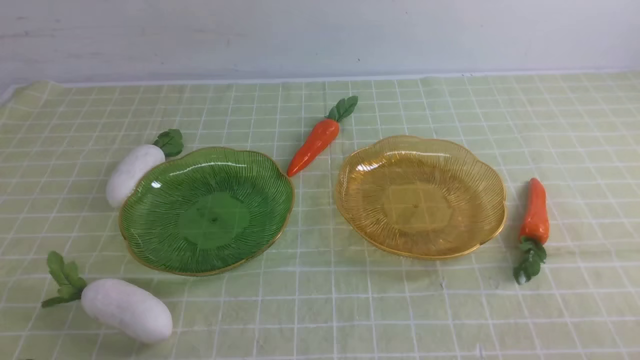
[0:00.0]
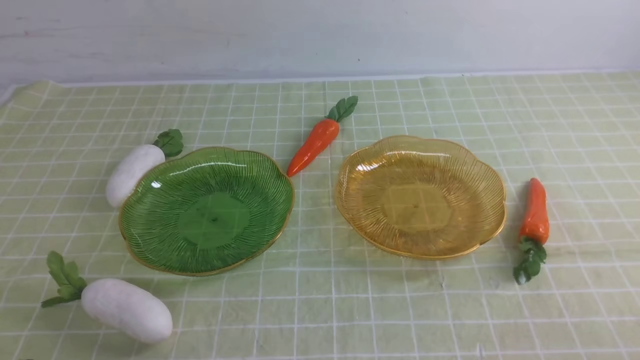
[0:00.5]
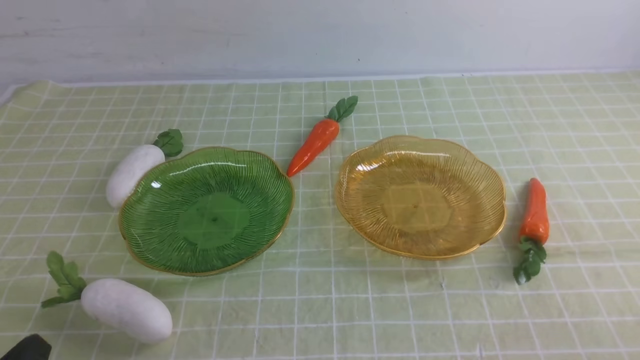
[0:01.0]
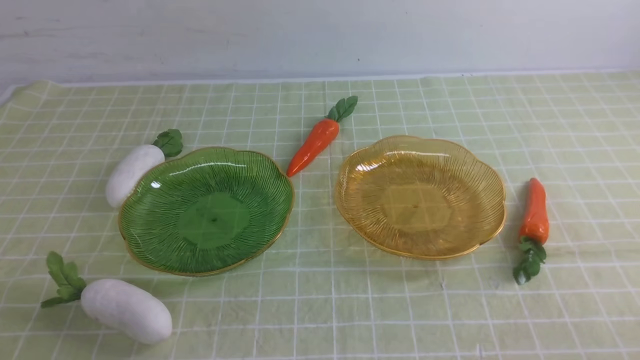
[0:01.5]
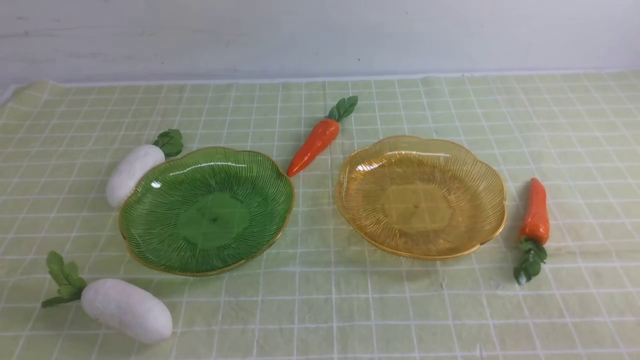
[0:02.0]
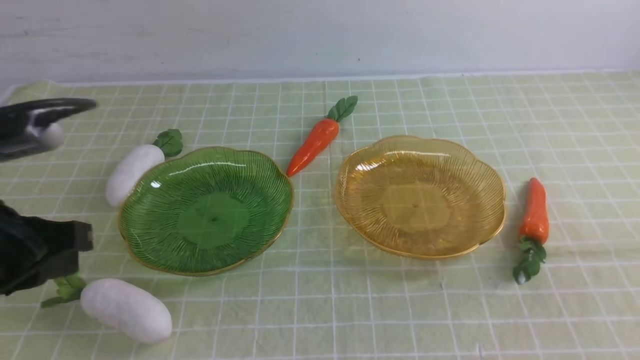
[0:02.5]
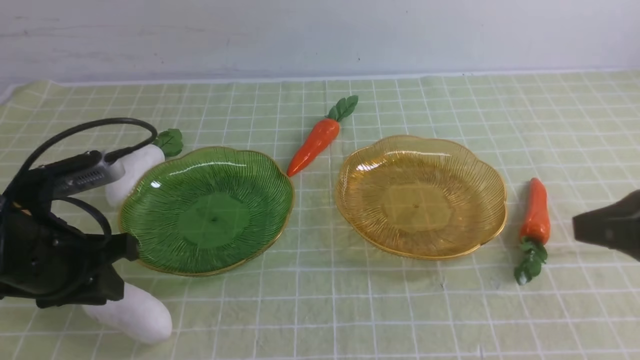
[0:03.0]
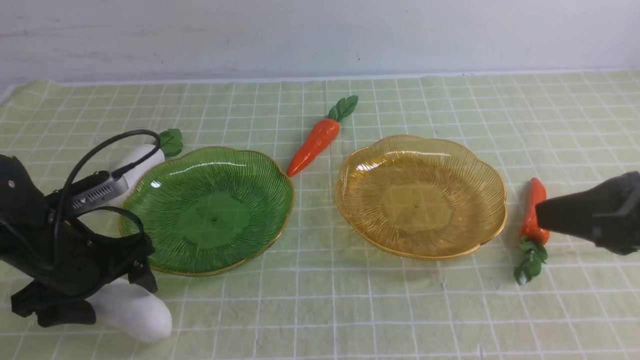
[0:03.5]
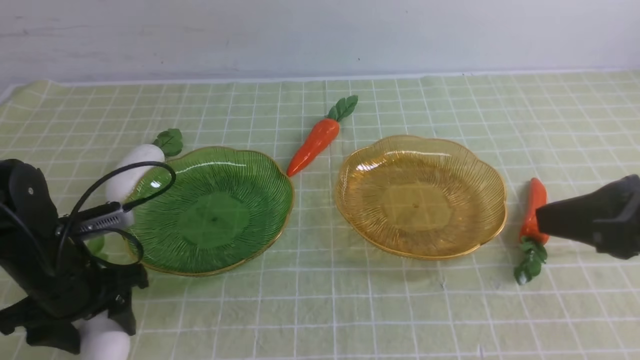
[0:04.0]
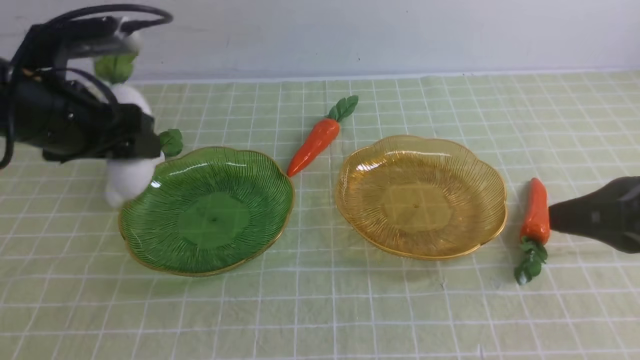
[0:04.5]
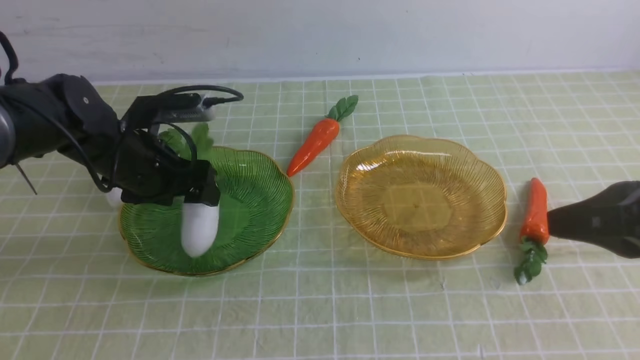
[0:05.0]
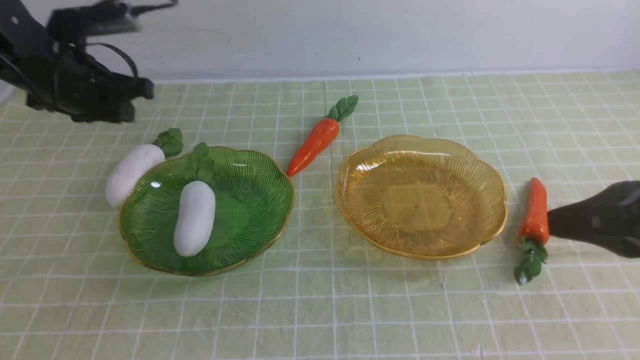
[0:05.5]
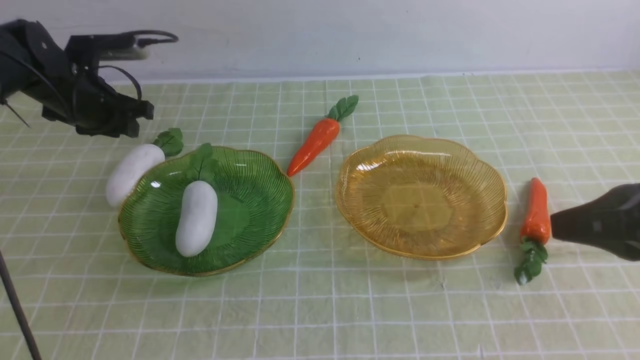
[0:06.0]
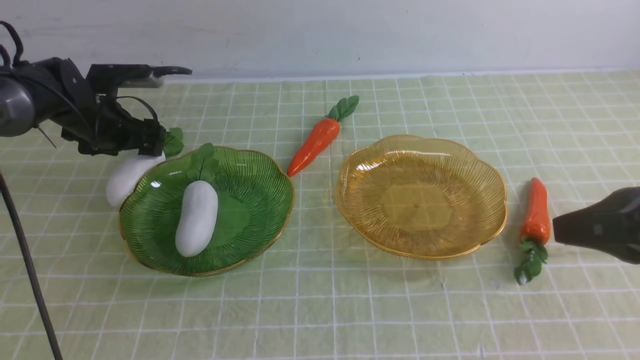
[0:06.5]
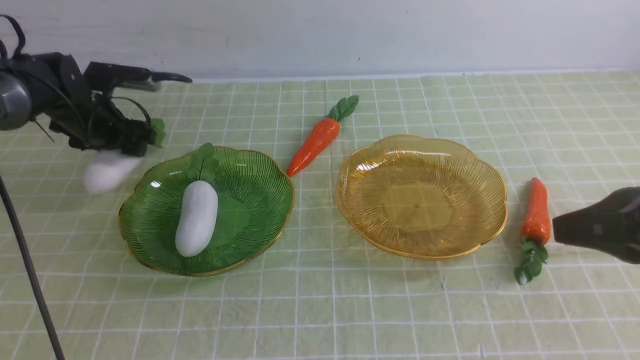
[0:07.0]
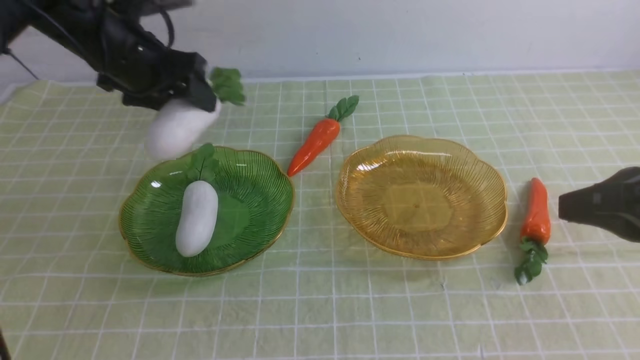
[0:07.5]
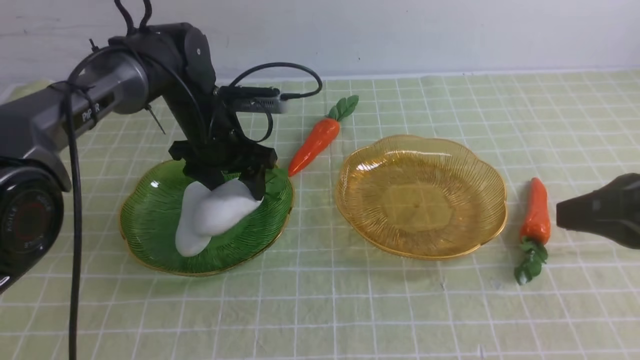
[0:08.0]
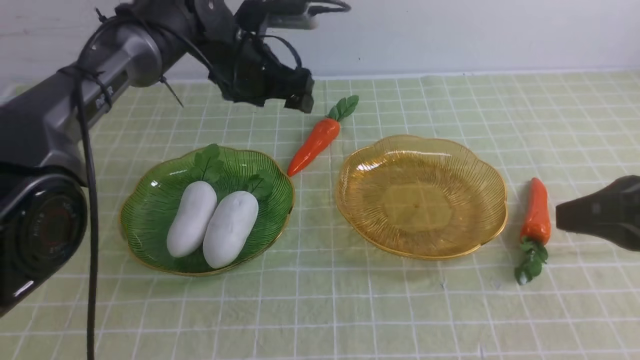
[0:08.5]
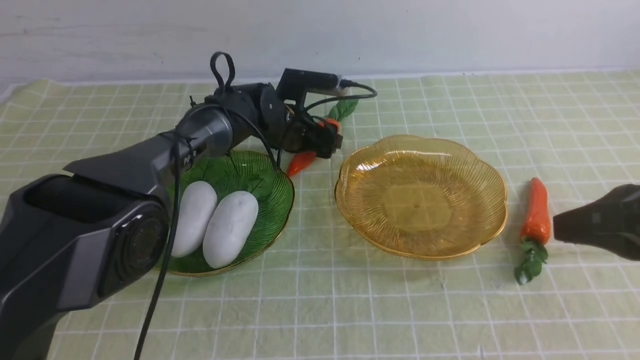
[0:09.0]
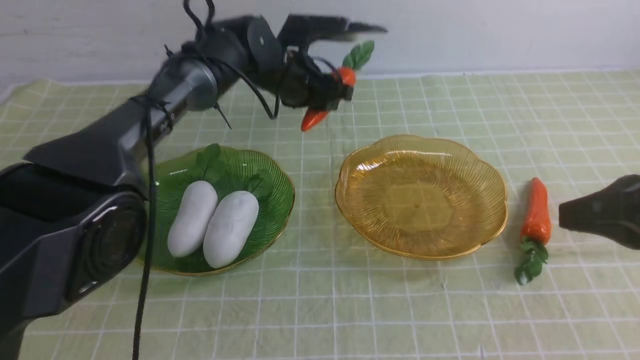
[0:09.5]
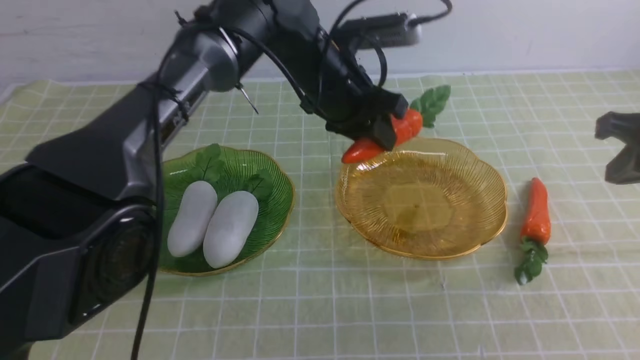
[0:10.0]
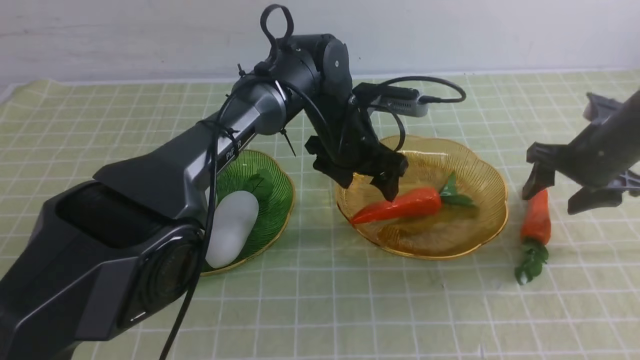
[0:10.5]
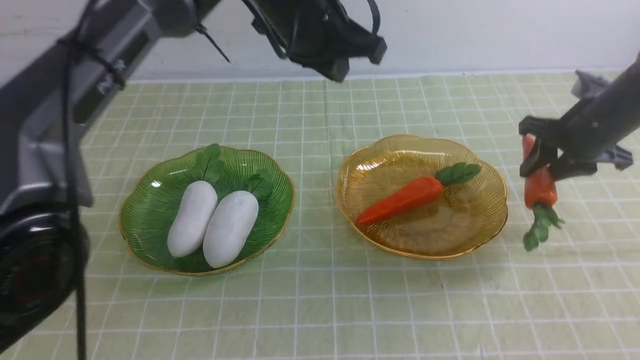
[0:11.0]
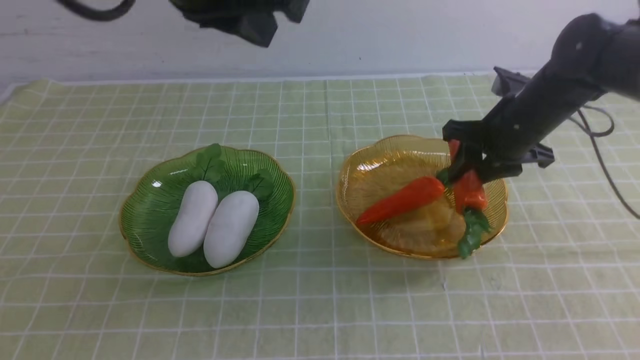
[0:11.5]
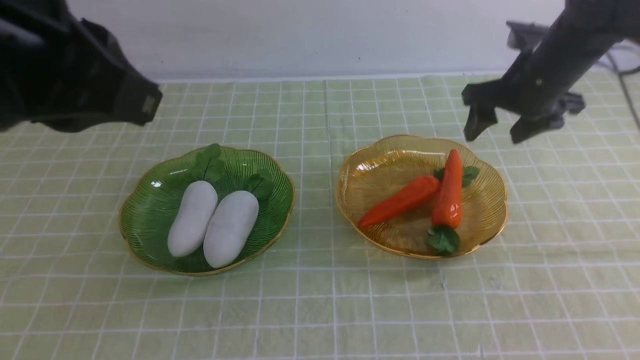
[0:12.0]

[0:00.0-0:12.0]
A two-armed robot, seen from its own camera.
Step, 0:00.0 to 0:08.0: use the left arm to grab a radish and put it into the left plate.
Step, 0:08.5 to 0:11.0: use the left arm to grab a carrot and put it into the right plate.
0:02.0 to 0:04.0: The left gripper moves forward and downward, roughly 25 cm, and opens up, while the right gripper heads forward, upward and to the left, covering some 20 cm.
0:04.0 to 0:06.0: The left gripper goes approximately 20 cm forward.
0:06.0 to 0:08.0: The left gripper heads to the right, covering roughly 15 cm, and opens up.
0:08.0 to 0:10.0: The right gripper is displaced forward and to the right by about 15 cm, while the left gripper moves to the right, roughly 15 cm, and closes.
0:10.0 to 0:12.0: The left gripper goes some 35 cm backward, upward and to the left, and closes its fingers. The right gripper is displaced forward and to the left by roughly 15 cm, moves approximately 10 cm downward and comes back, and opens up.

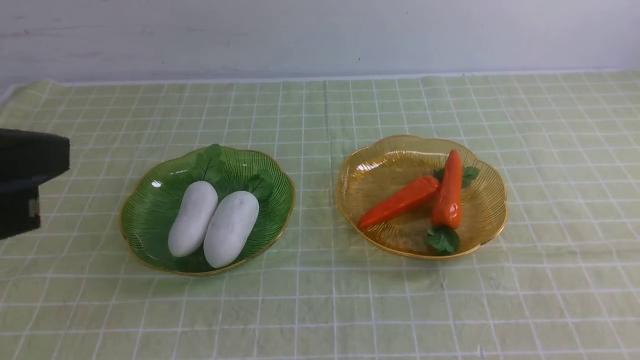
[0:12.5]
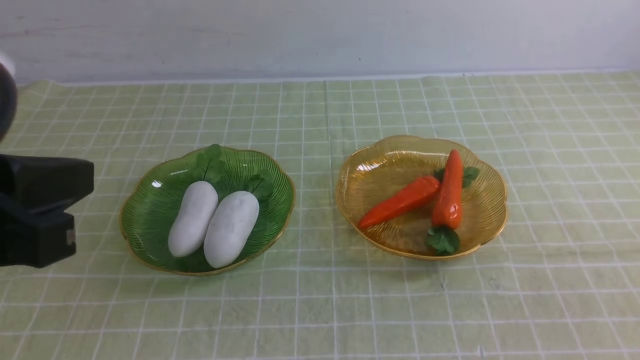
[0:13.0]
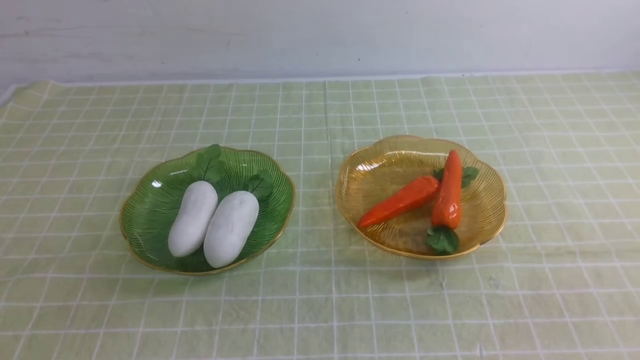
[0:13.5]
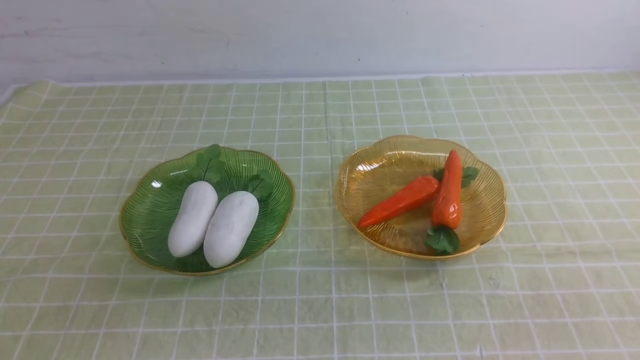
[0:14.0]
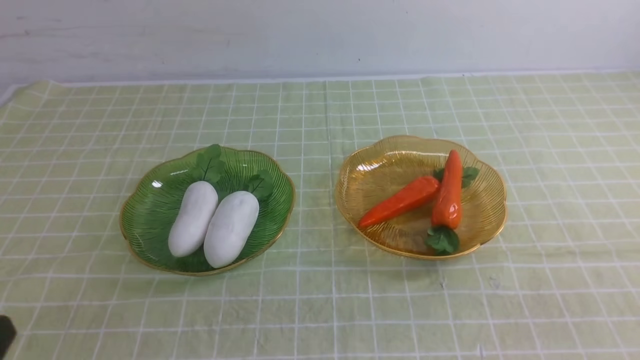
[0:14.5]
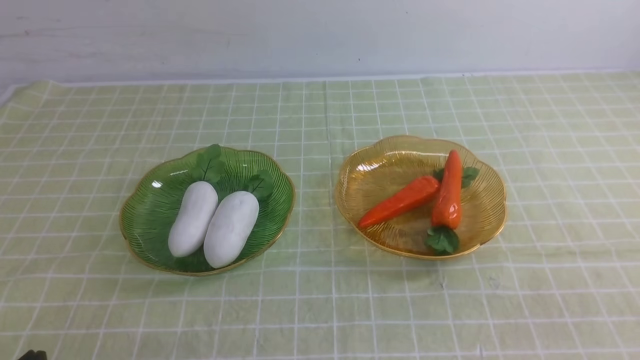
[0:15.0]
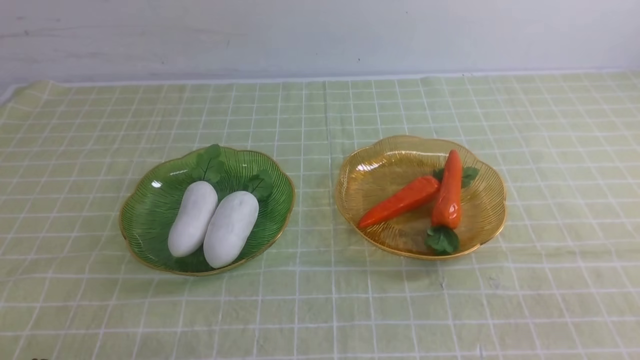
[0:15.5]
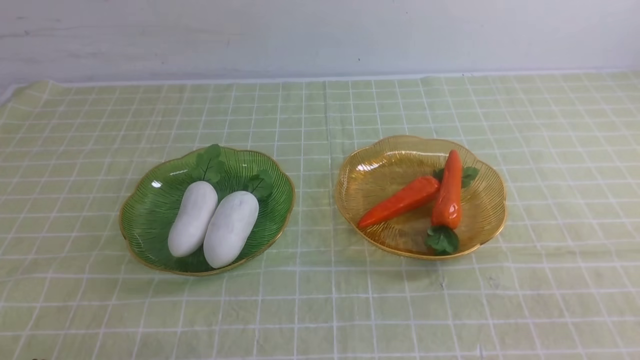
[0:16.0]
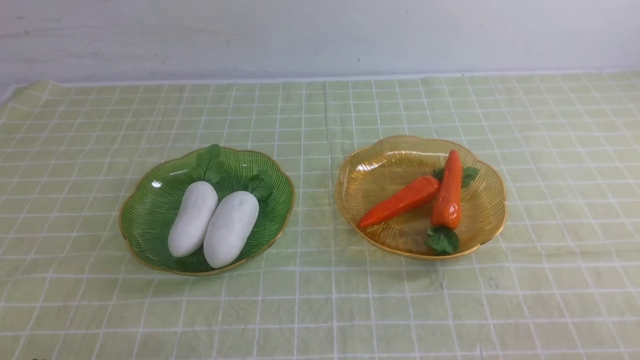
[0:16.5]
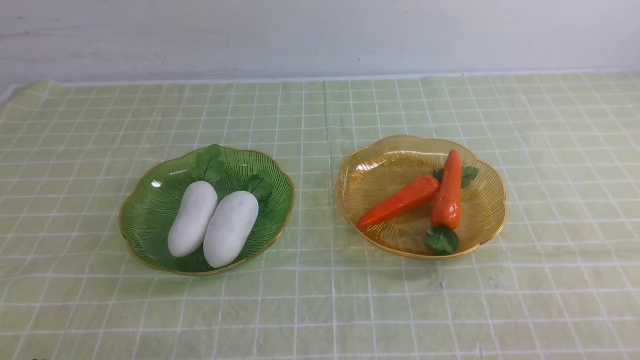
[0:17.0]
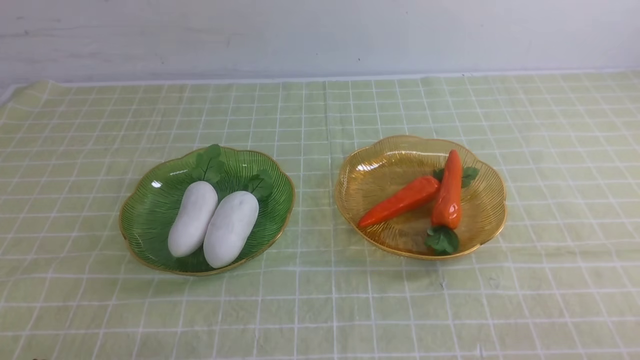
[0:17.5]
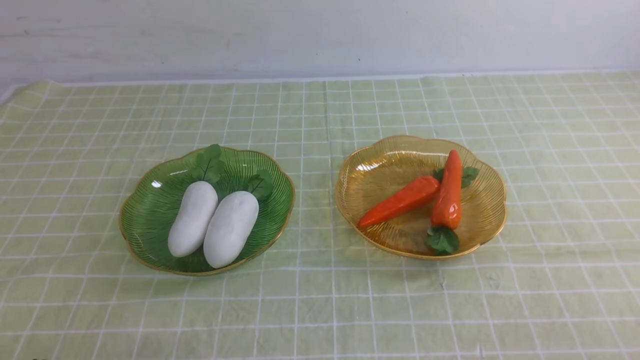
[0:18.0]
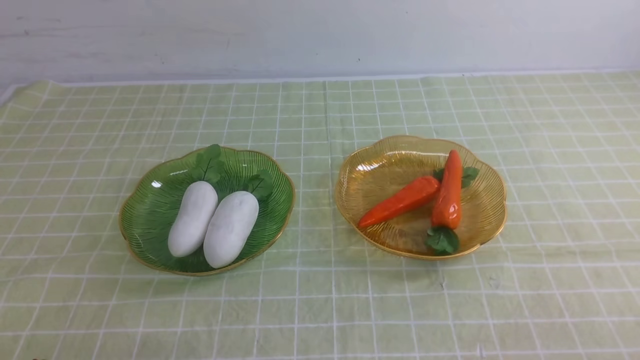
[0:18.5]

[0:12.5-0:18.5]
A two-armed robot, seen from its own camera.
0:12.5 to 0:14.5: The left gripper is displaced downward and backward by roughly 20 cm.
